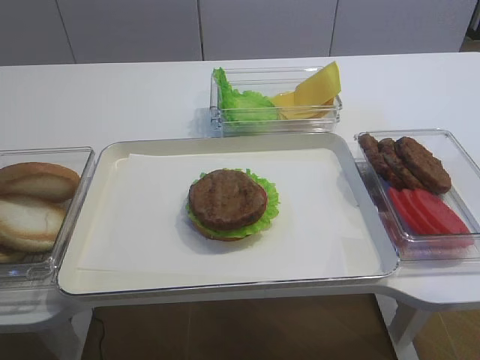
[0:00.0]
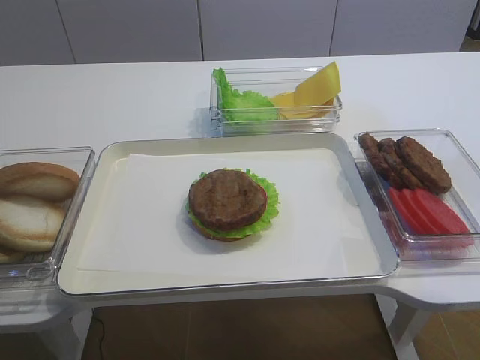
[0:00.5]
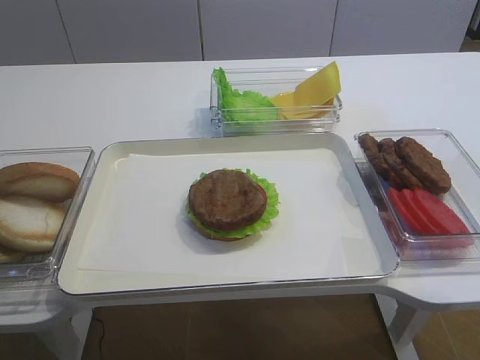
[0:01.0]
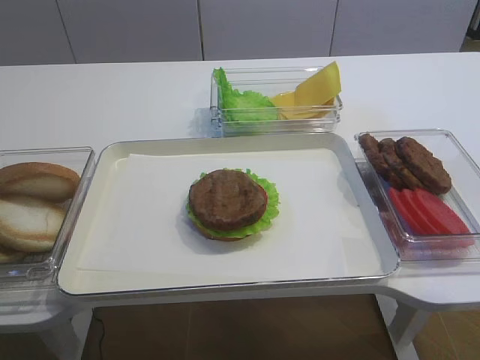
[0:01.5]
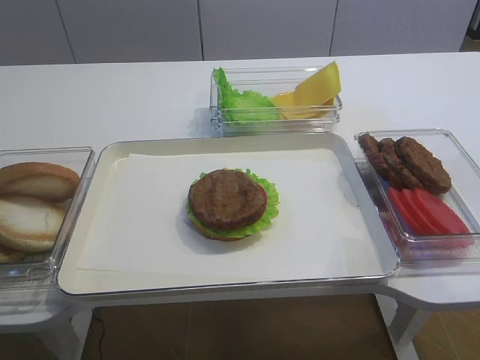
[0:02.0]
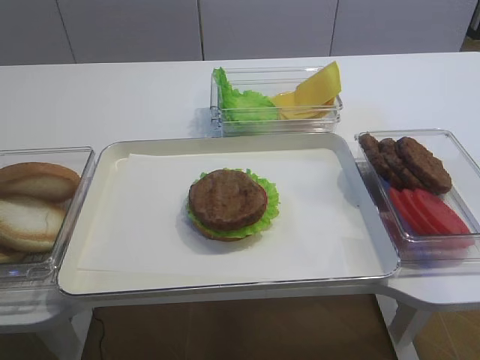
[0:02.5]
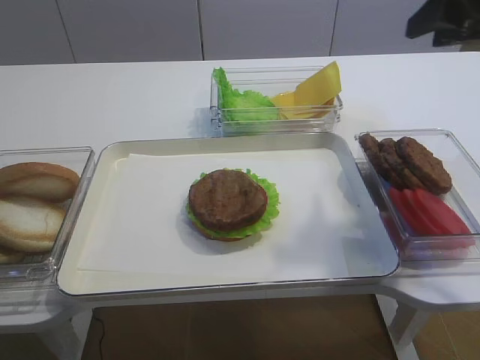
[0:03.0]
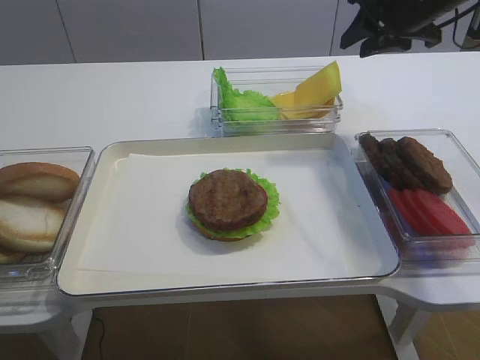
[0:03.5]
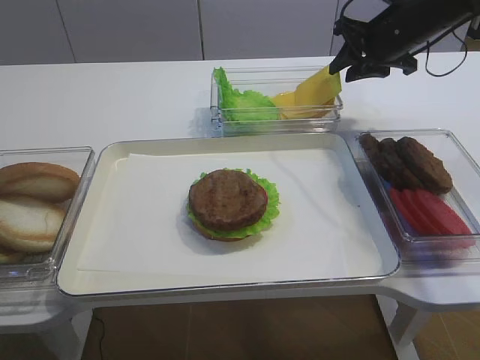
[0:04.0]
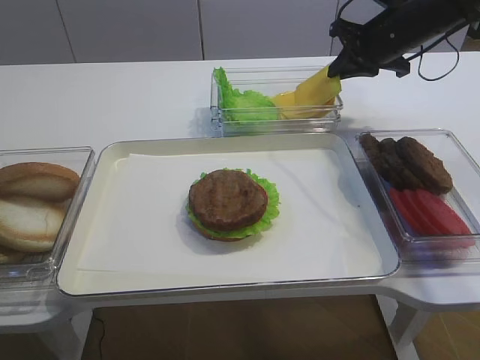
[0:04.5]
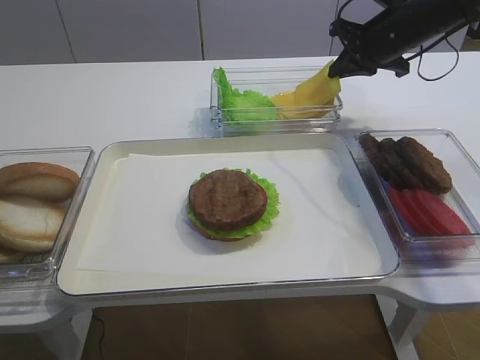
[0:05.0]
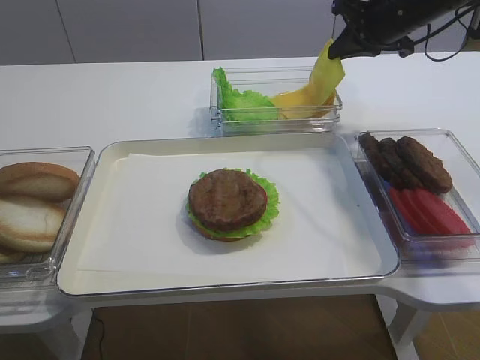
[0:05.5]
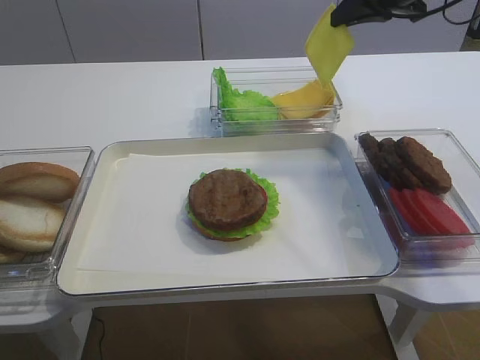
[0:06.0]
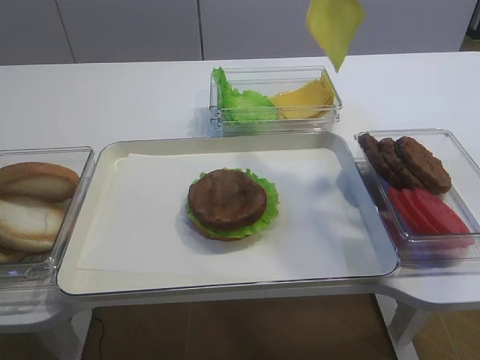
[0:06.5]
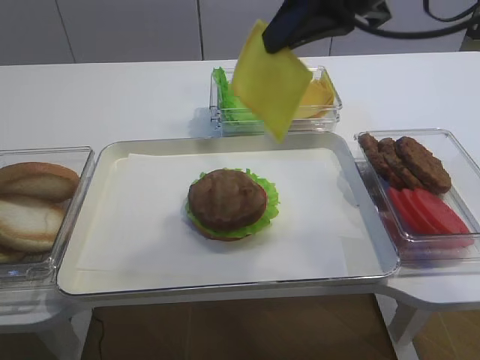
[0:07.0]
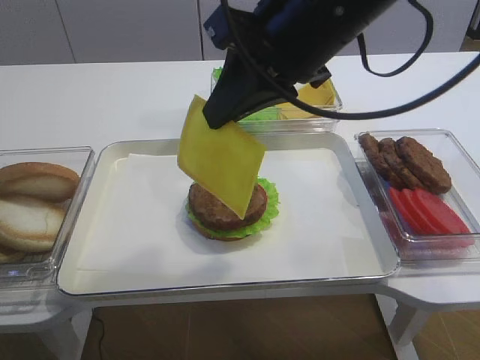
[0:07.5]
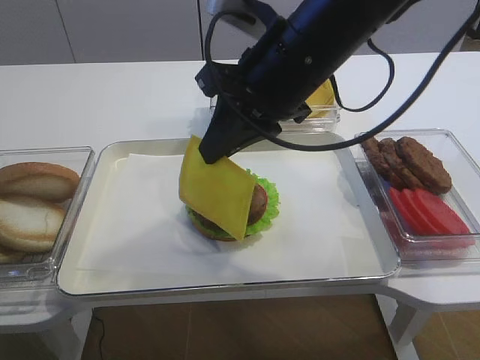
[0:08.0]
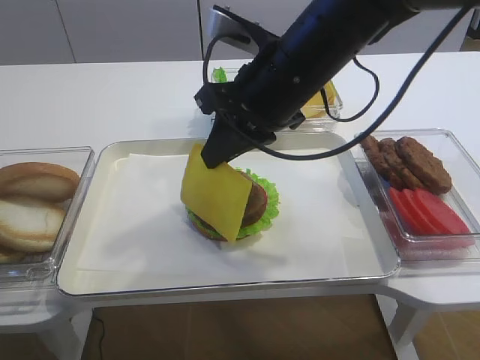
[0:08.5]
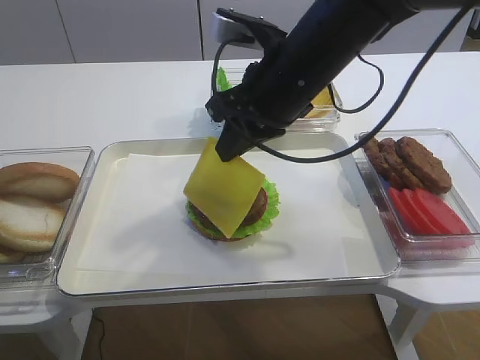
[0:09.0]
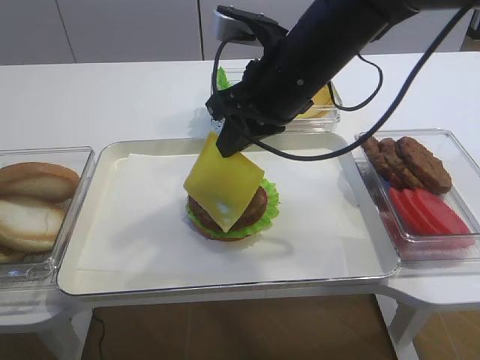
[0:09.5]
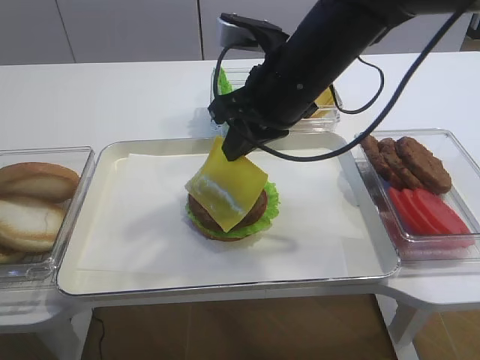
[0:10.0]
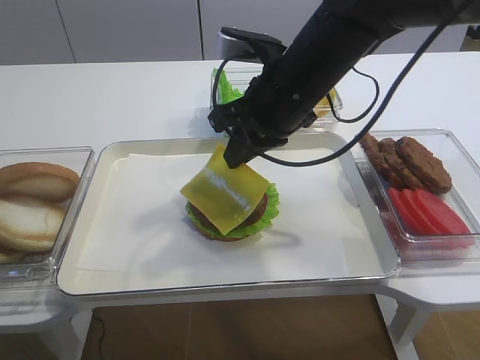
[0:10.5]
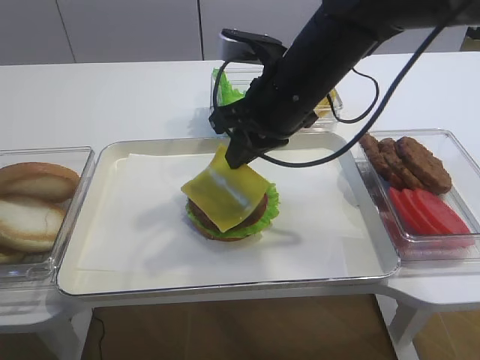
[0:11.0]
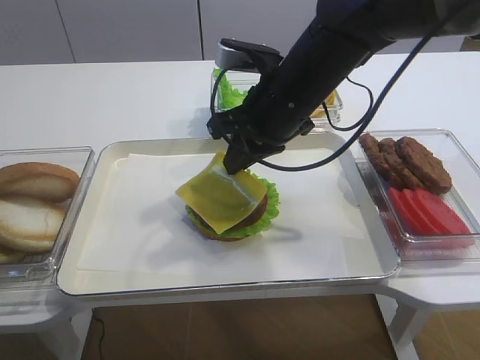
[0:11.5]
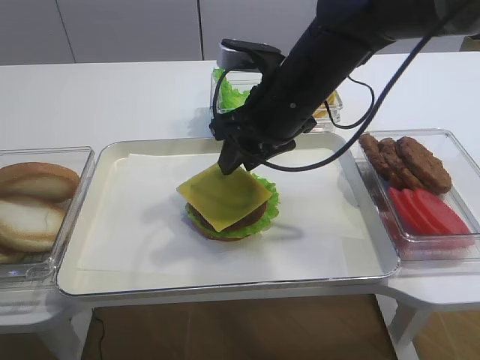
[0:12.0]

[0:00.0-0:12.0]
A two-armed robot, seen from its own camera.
Step, 0:00.0 to 0:06.0: Pick up the cheese slice with the right gripper.
0:02.0 to 0:04.0: The right gripper travels forward by approximately 50 cm.
0:04.0 to 0:06.0: The right gripper goes about 10 cm upward, and closes.
0:06.0 to 0:08.0: The right gripper shifts some 20 cm backward and to the left.
0:08.0 to 0:10.0: The grippers stay close to where they were, moving slightly.
0:10.0 to 0:12.0: The right gripper opens up.

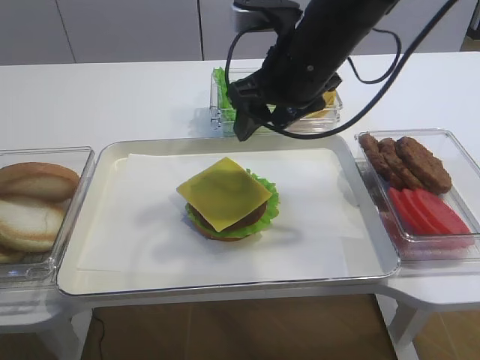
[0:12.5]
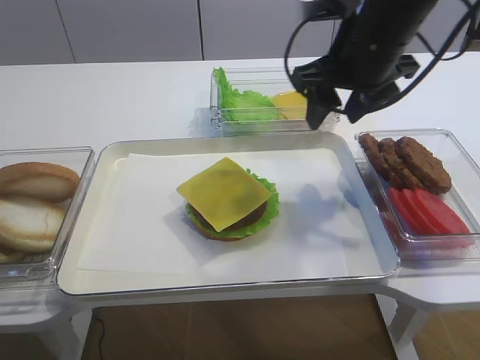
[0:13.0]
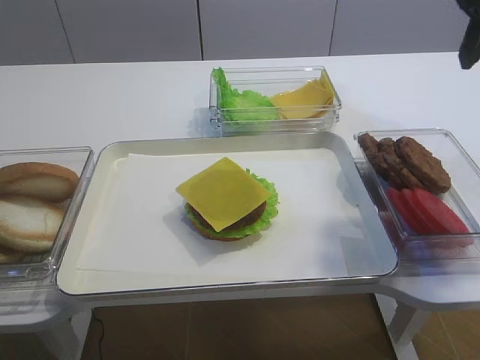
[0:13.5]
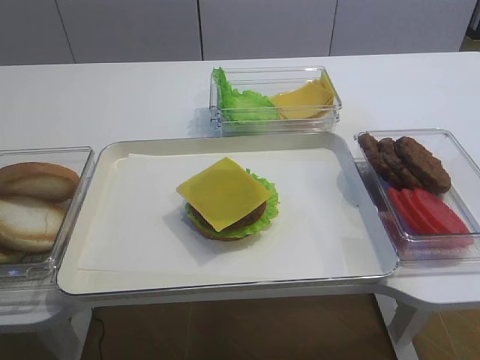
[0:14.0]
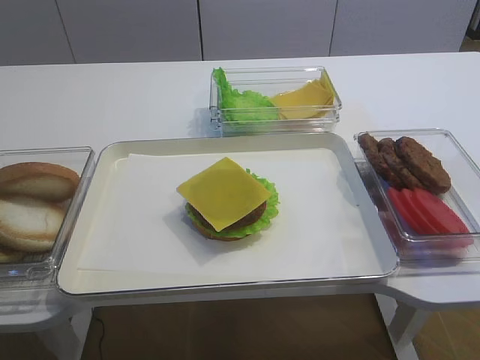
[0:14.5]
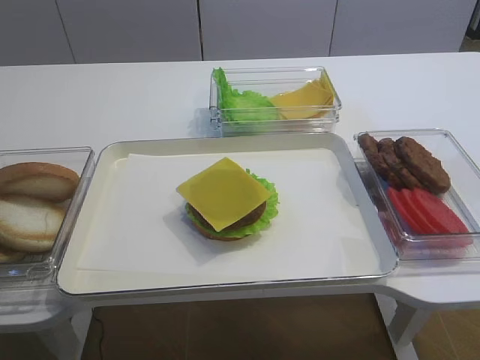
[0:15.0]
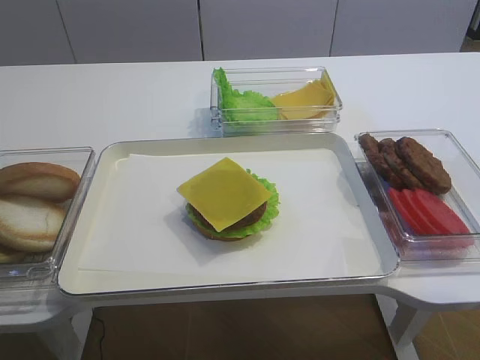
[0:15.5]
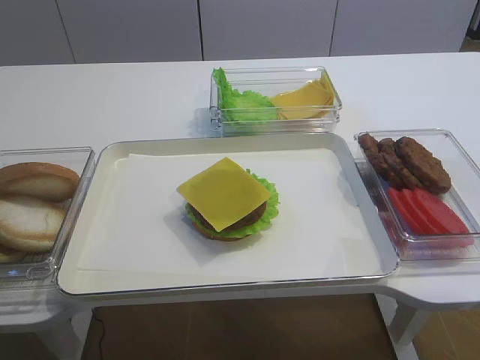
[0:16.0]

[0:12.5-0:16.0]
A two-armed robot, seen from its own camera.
0:12.5 to 0:14.5: The right gripper heads backward and to the right, covering approximately 35 cm.
0:14.5 to 0:16.0: The right gripper travels downward by roughly 10 cm.
